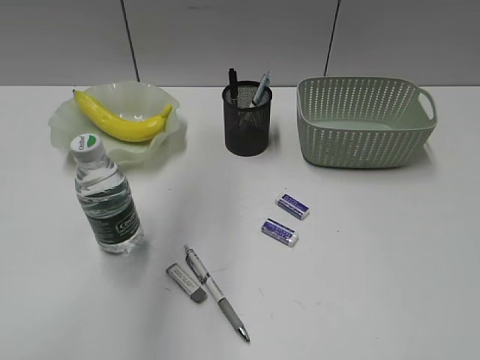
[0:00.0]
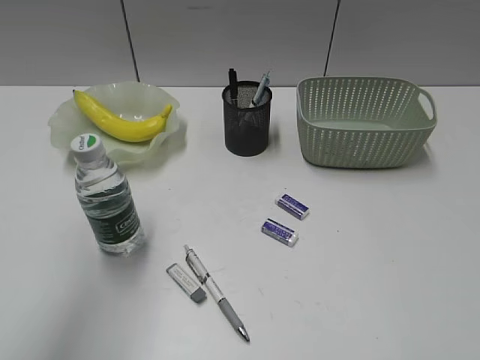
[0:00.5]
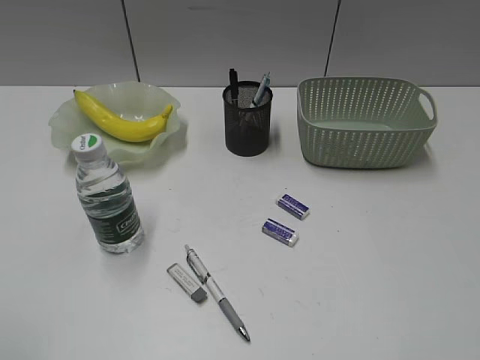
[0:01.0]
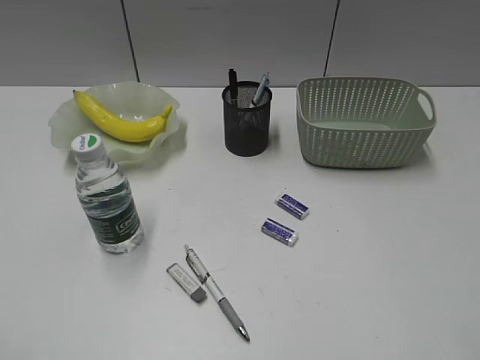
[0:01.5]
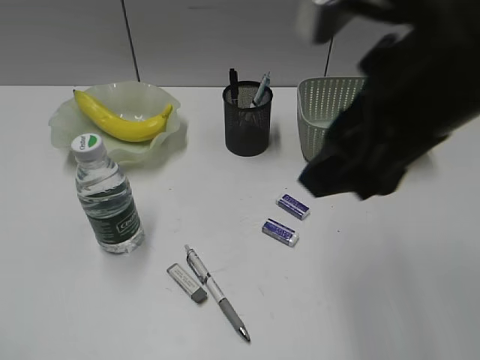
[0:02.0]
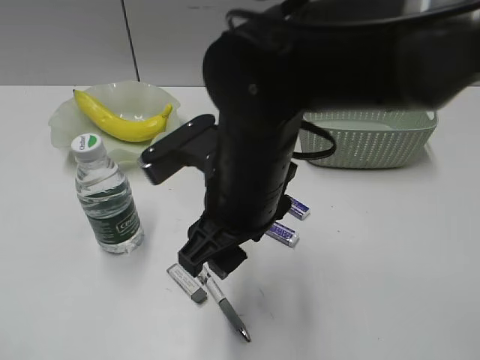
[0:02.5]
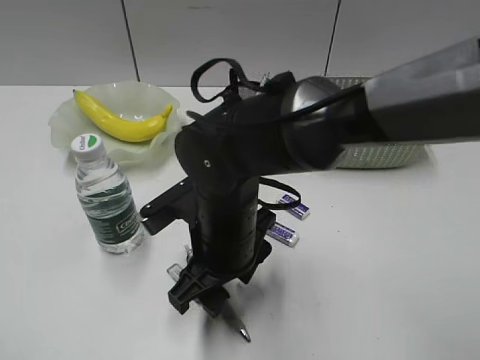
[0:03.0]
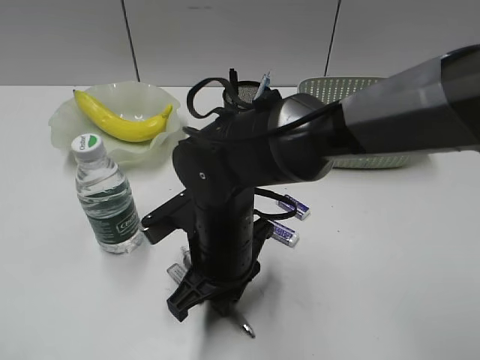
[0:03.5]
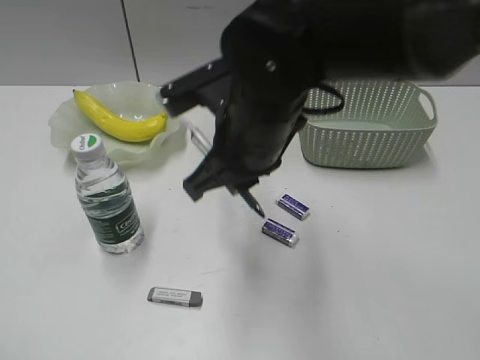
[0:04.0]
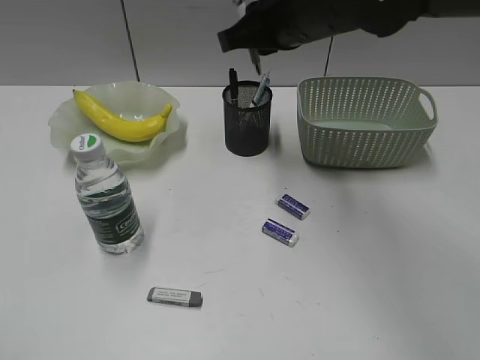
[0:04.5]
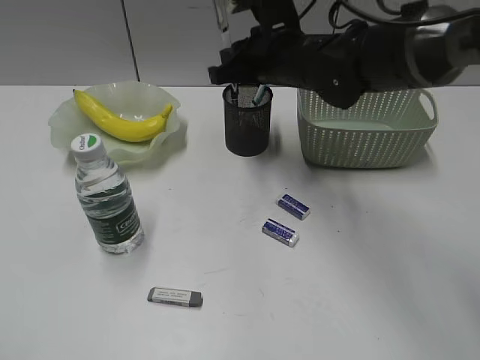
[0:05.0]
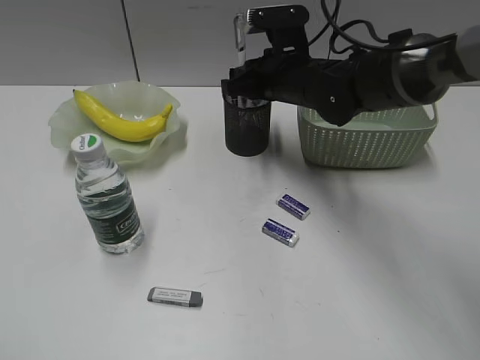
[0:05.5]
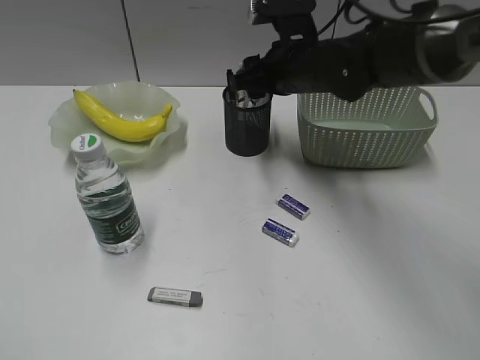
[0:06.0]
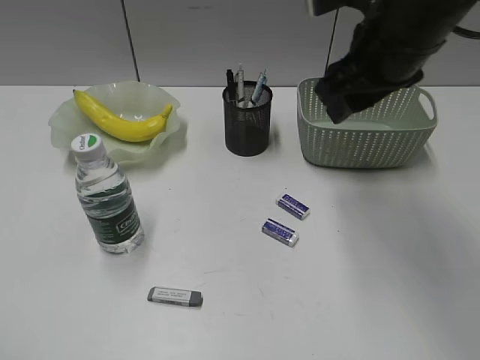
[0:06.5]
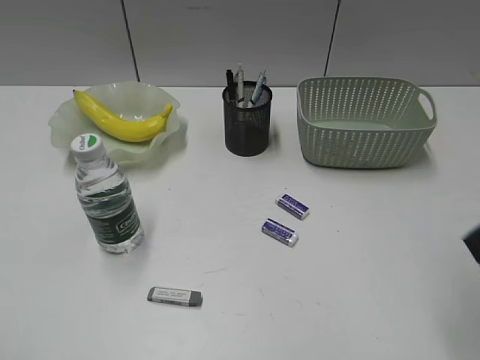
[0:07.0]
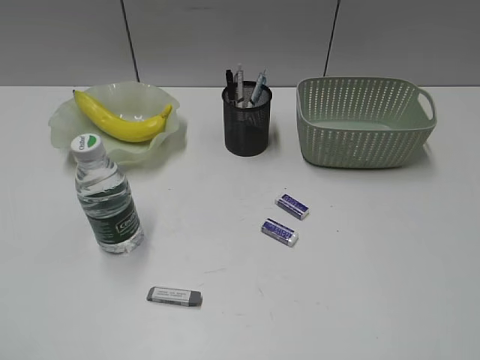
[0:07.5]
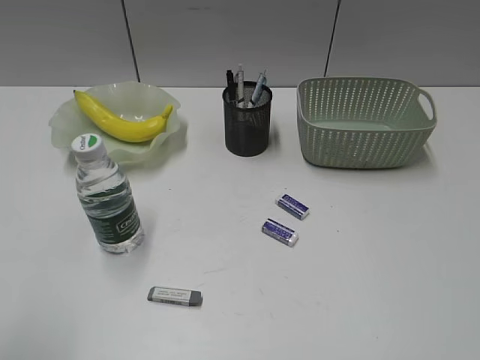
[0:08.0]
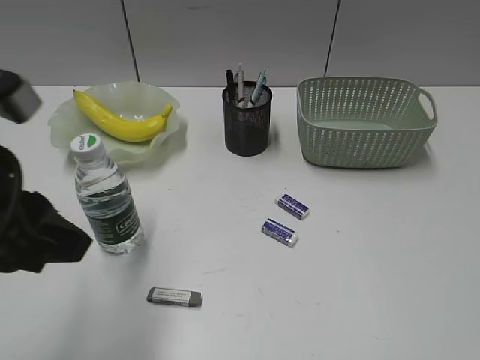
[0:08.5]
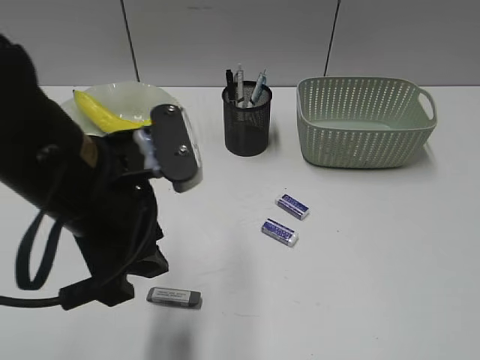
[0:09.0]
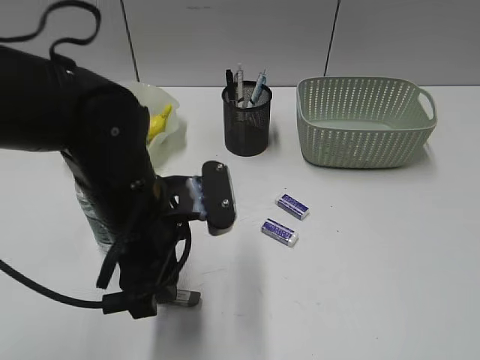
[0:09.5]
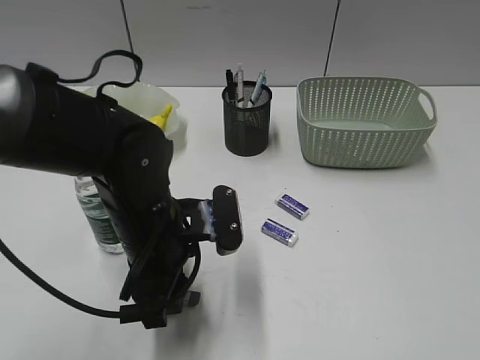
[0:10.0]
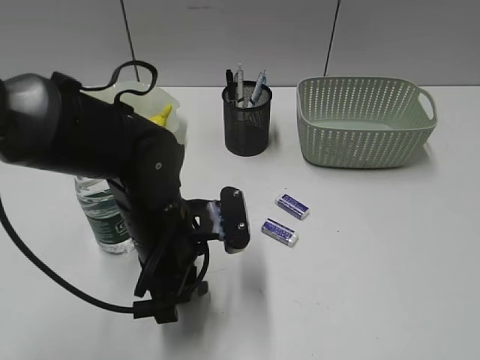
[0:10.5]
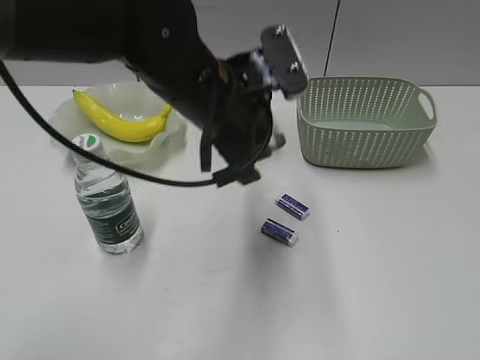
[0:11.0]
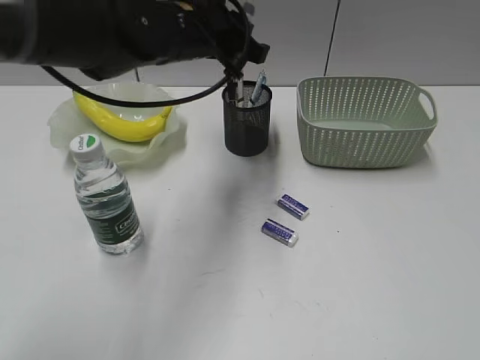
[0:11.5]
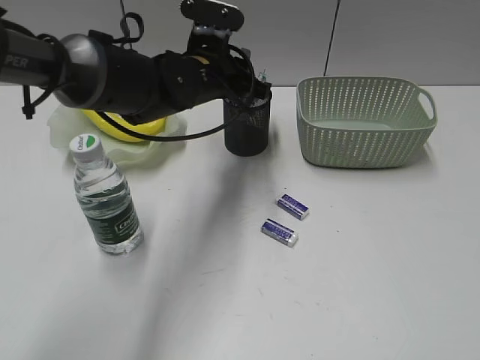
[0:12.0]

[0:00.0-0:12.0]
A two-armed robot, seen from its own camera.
Step, 0.0 to 3.5 s: Grasp the gray pen with right gripper.
Step, 4.0 to 5.5 s: Place the gray pen in pen holder with right gripper.
Step, 6.0 to 10.0 s: Grasp the eraser with left gripper.
0.0 to 2.0 s: The left gripper moves backward and to the left, about 35 cm, and closes. The right gripper goes some 25 cm forward and to the left.
2.0 to 4.0 s: The right gripper is displaced downward, to the left and forward by roughly 20 cm, and closes up.
4.0 to 6.0 s: The right gripper moves forward and to the right, approximately 15 cm, and opens up.
6.0 to 8.0 s: The right gripper heads backward and to the right, covering roughly 50 cm, while the left gripper shifts by some 5 cm.
8.0 to 10.0 s: The left gripper travels to the right, forward and downward by about 35 cm.
10.0 to 12.0 s: The left gripper shifts approximately 15 cm forward, and closes.

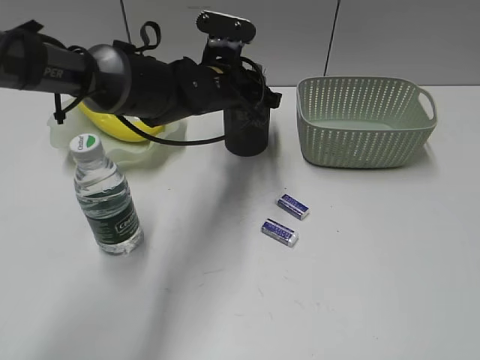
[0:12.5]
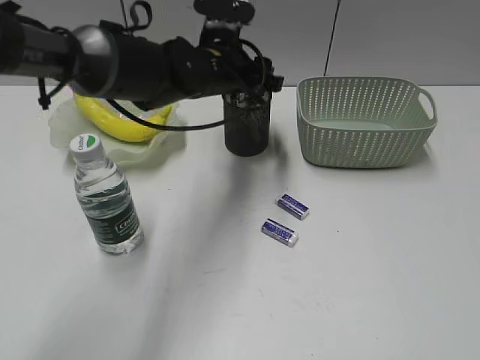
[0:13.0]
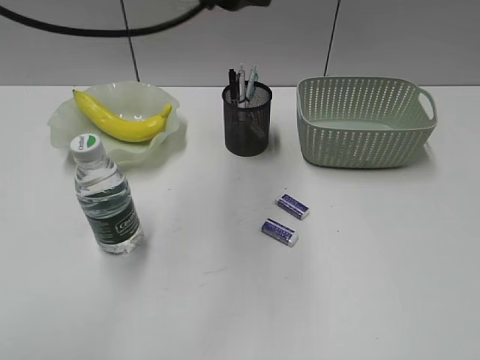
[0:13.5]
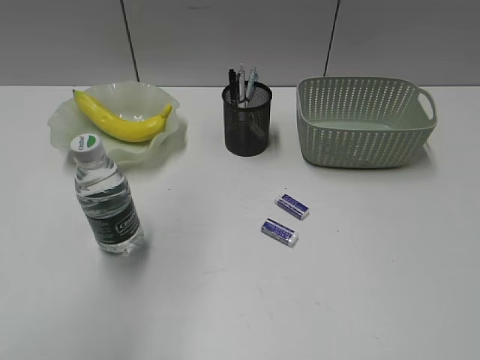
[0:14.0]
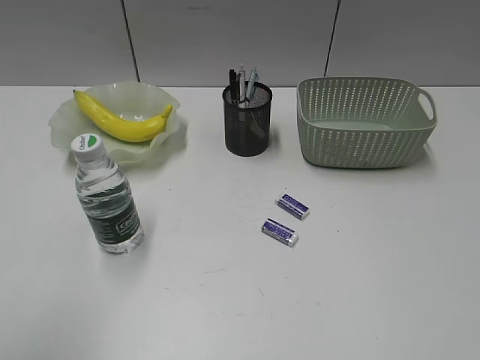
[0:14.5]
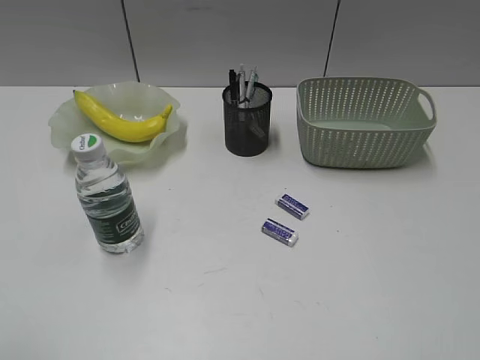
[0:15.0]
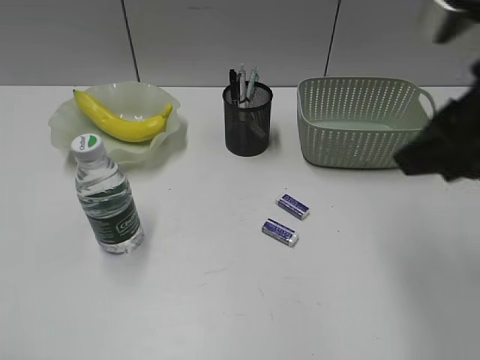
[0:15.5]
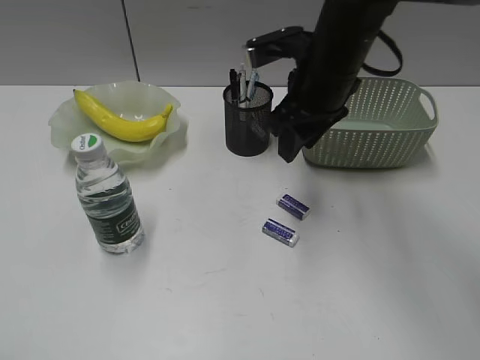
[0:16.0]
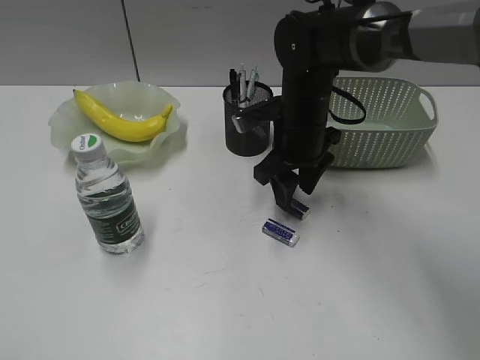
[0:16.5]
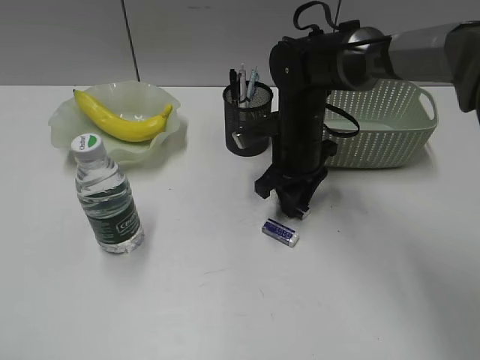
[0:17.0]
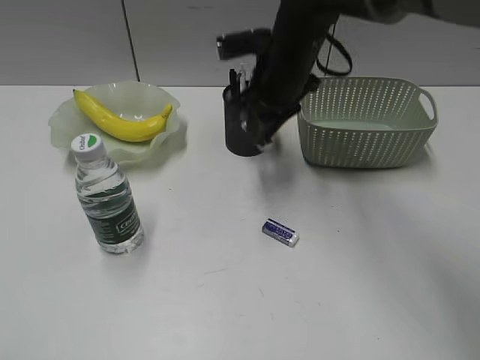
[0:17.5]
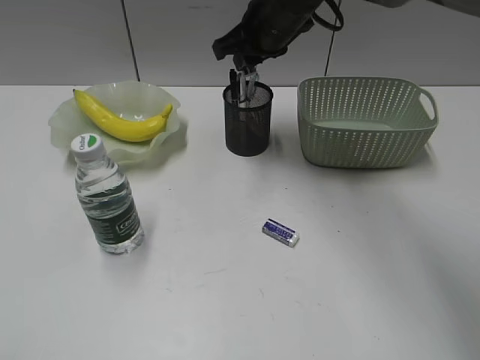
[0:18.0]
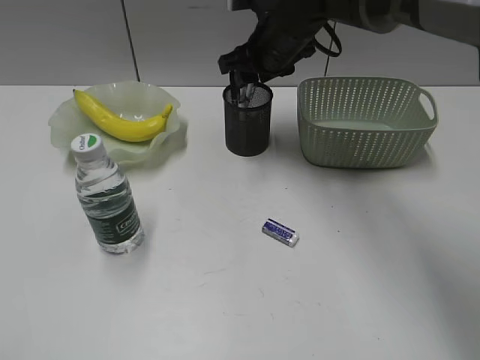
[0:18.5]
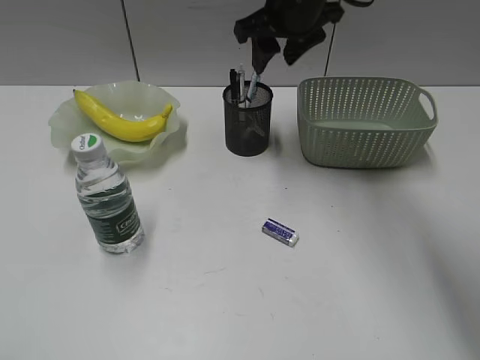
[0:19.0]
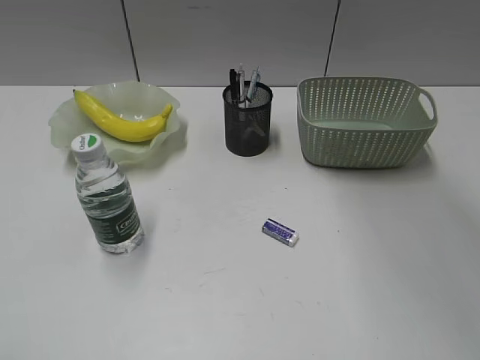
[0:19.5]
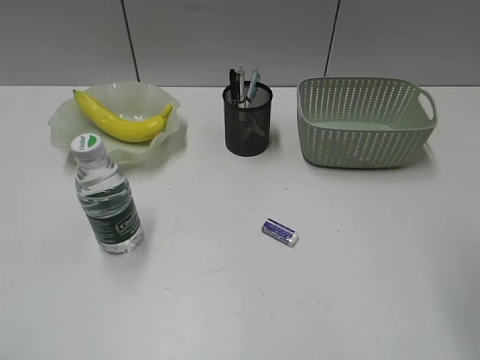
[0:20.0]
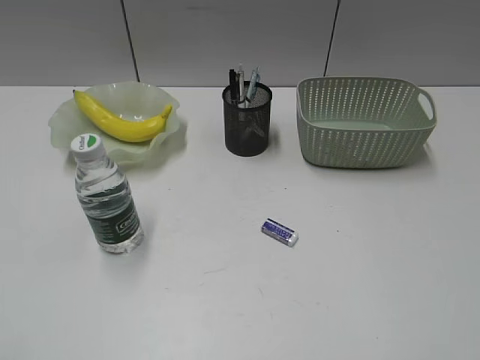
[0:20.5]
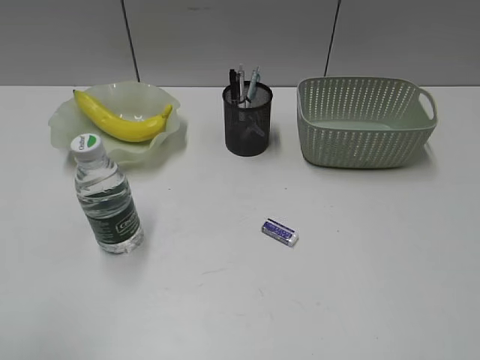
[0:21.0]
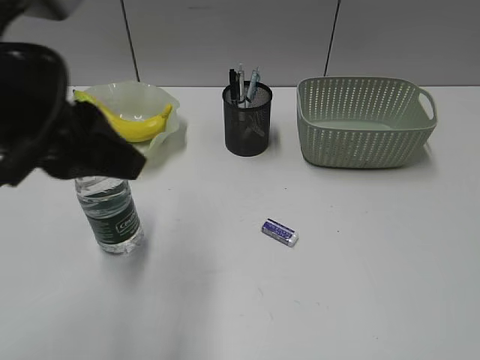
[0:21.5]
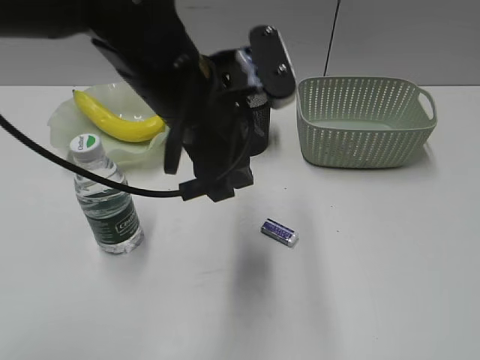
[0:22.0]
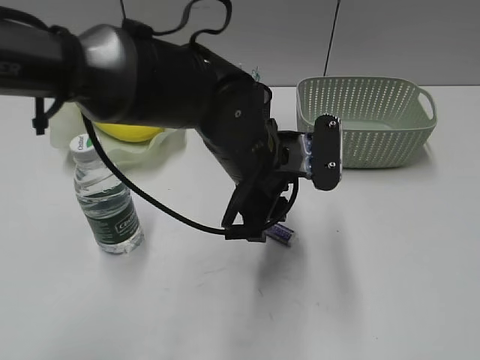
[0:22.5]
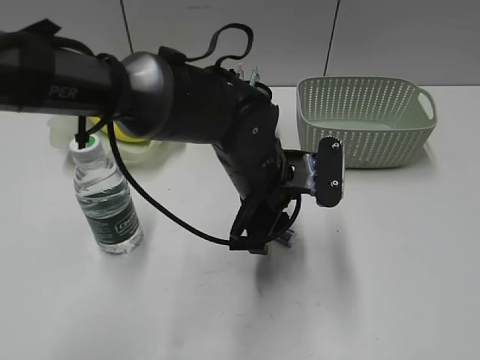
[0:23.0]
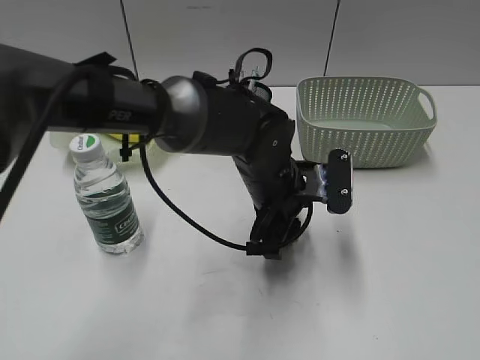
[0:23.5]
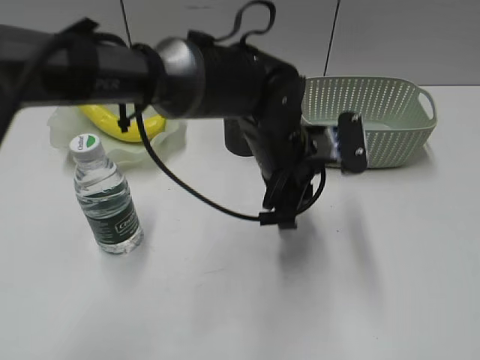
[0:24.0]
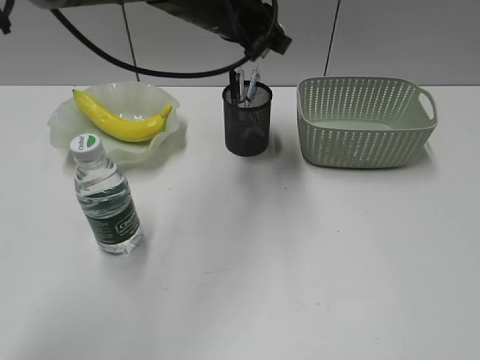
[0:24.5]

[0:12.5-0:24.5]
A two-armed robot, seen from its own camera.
Step, 13.0 to 17.0 s: Grasp the eraser with right gripper.
Step, 17.5 to 18.5 s: Place the eraser in pen holder with right gripper.
Step, 19.0 to 23.5 s: Grasp the eraser with left gripper.
12.5 to 14.5 s: The left gripper goes some 50 cm backward, to the left and upward, and opens its fingers.
14.5 to 16.5 s: The left gripper is displaced downward, backward and to the left by roughly 15 cm. Meanwhile the right gripper goes some 50 cm forward and to the left.
16.5 to 18.5 s: The right gripper moves forward and upward, some 10 cm, and closes, then reopens.
18.5 to 20.5 s: The right gripper shifts roughly 50 cm backward and to the right.
20.5 to 22.5 s: The right gripper shifts by roughly 5 cm, while the left gripper moves to the right and forward, roughly 40 cm.
22.5 to 24.5 s: The left gripper shifts roughly 15 cm forward and upward, and closes.

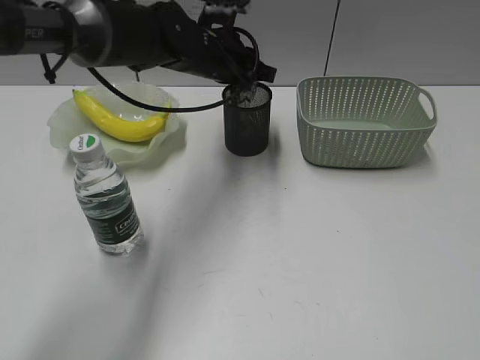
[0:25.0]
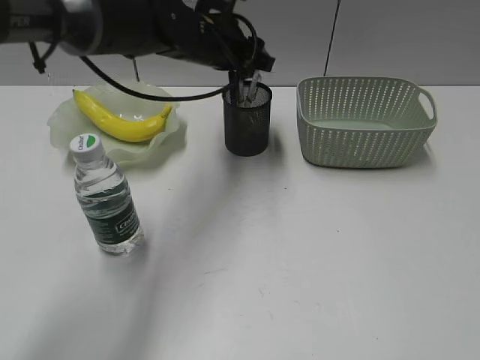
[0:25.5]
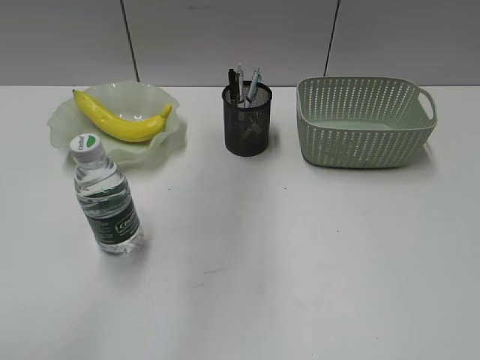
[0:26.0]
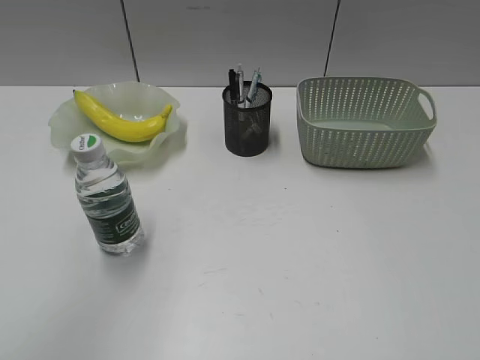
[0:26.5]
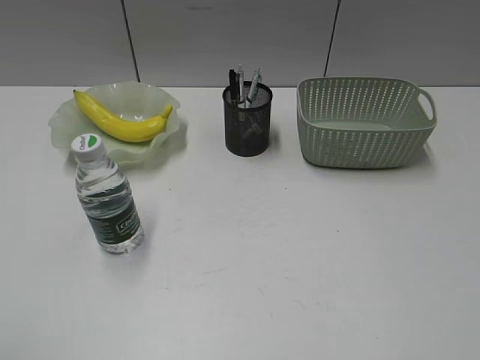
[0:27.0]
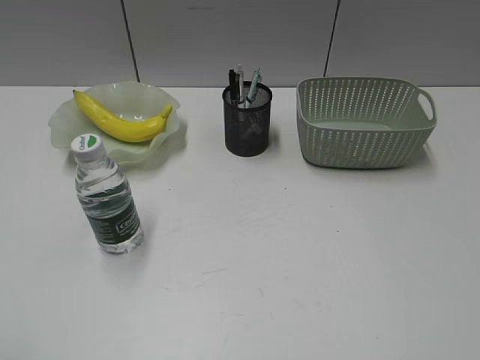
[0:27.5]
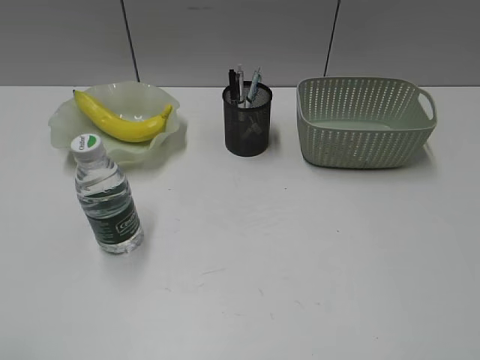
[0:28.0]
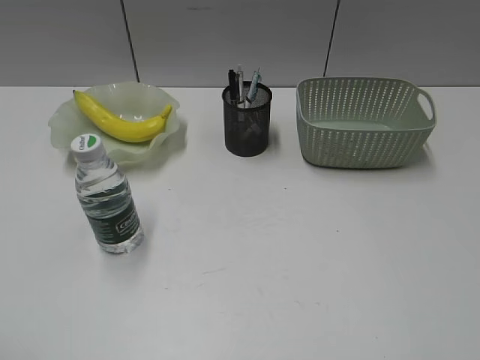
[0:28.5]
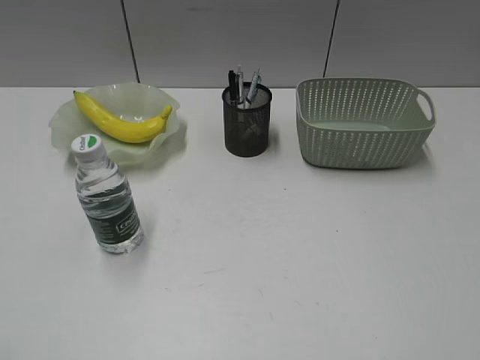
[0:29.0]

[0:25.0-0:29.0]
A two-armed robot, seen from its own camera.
25.0 to 27.0 s: The left gripper goes some 50 cm backward and to the left, and opens its fingers.
